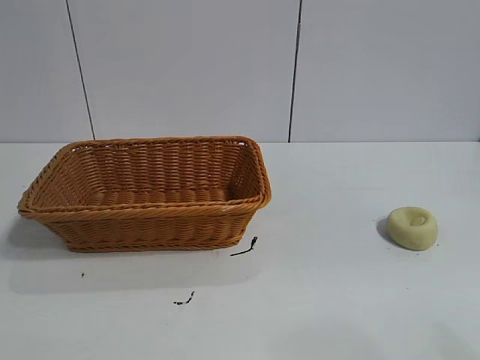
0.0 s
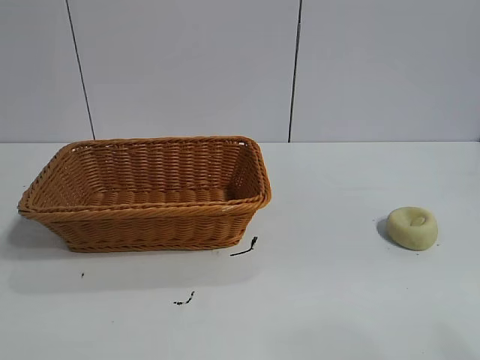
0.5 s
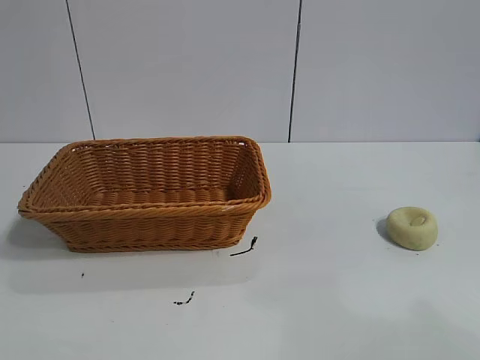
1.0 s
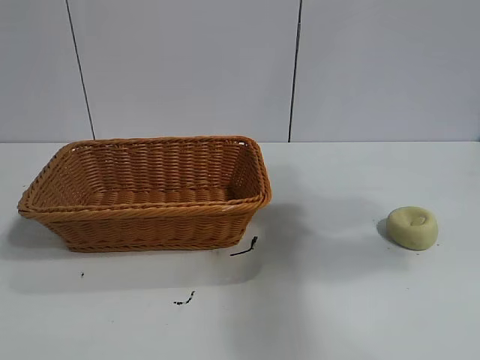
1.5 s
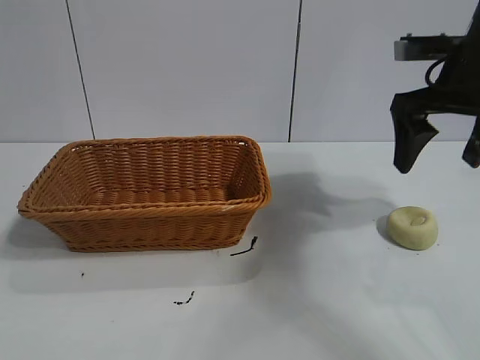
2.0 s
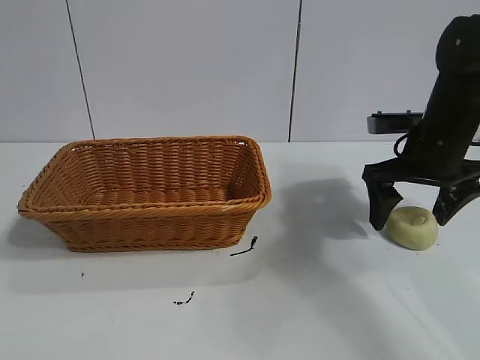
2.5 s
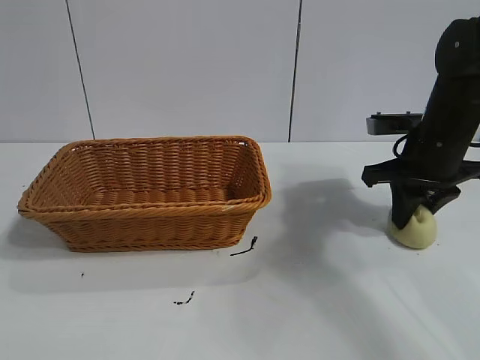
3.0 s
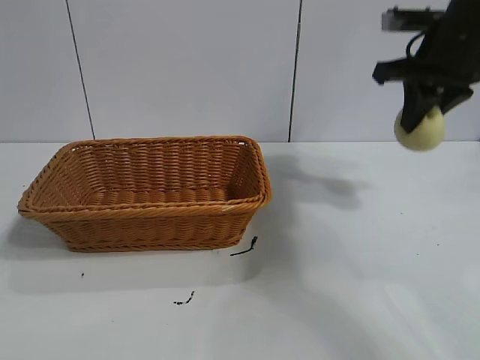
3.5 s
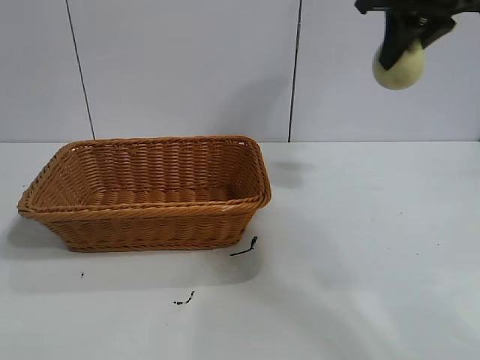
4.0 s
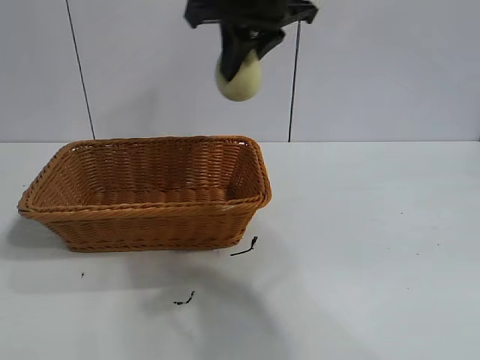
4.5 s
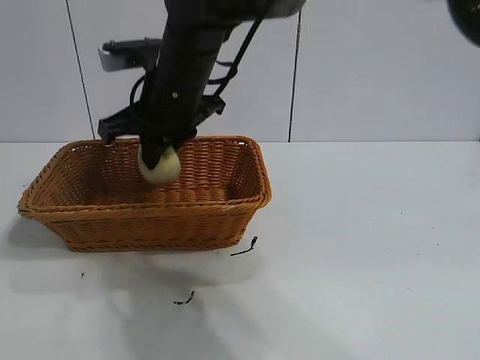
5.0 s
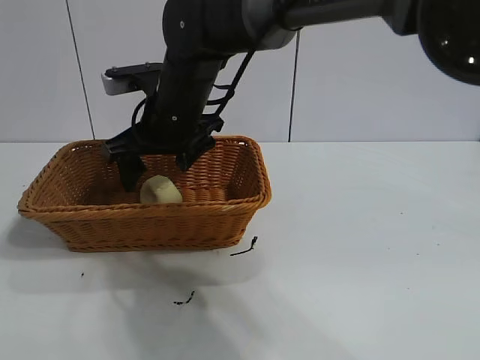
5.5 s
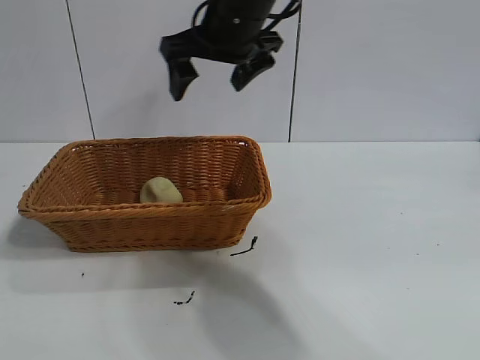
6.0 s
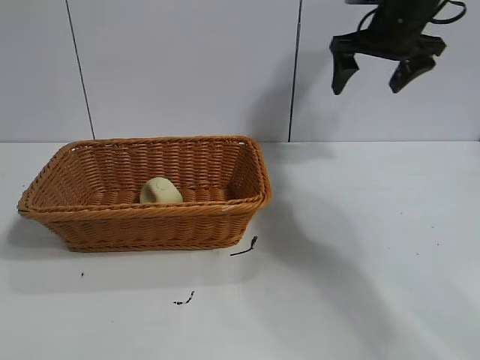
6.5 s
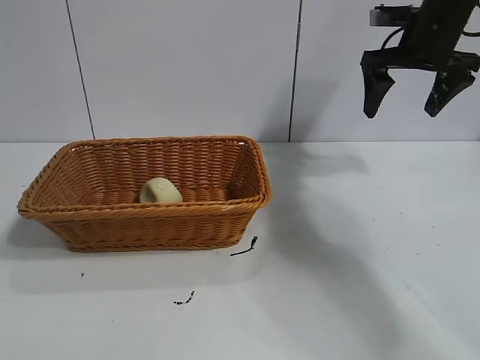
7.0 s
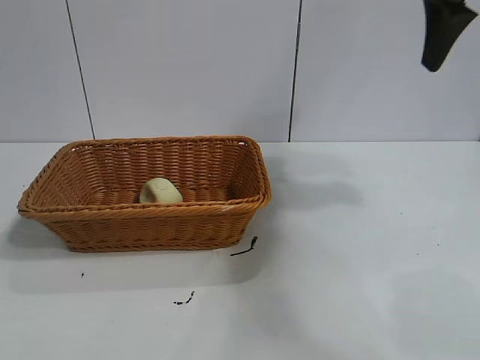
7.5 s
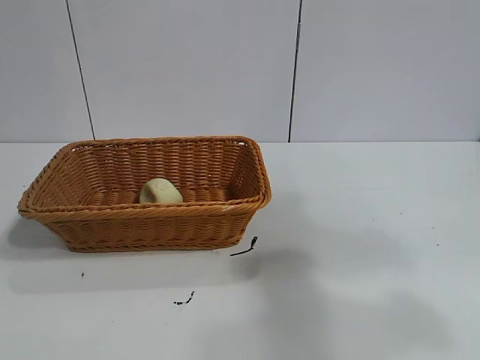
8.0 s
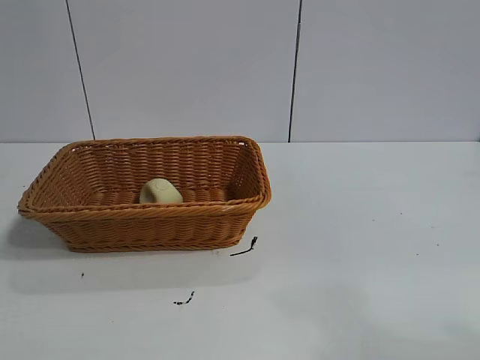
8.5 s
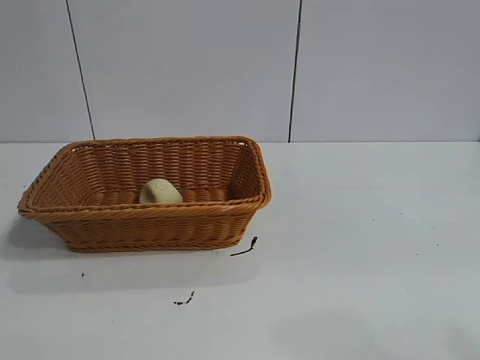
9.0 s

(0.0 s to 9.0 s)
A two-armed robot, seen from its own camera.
Task of the whole recording: pick up the egg yolk pastry and put it into the basket.
Step, 1.0 s - 3.0 s: Grasp egg yolk pastry with right gripper.
Step, 3.5 s - 5.5 s: Place the egg yolk pastry in the basket with right gripper.
